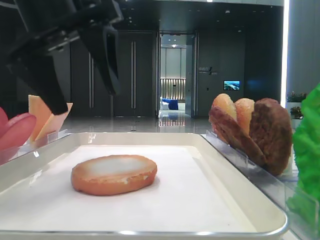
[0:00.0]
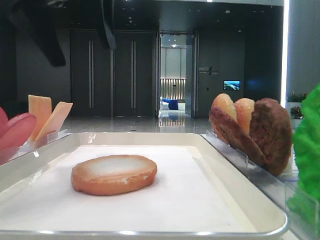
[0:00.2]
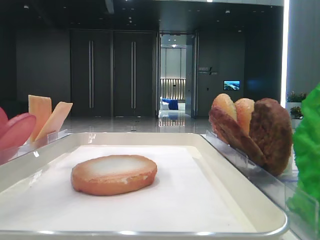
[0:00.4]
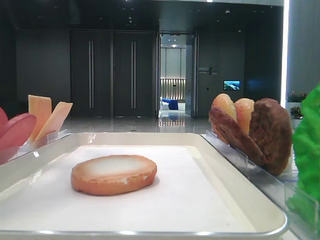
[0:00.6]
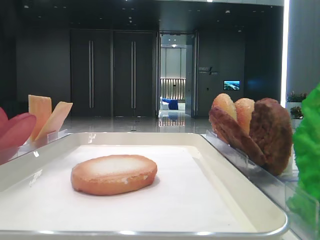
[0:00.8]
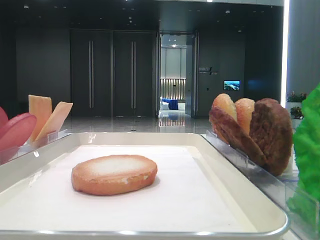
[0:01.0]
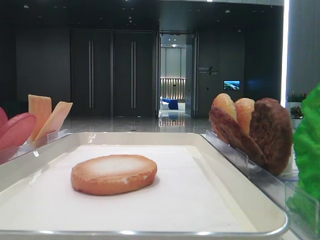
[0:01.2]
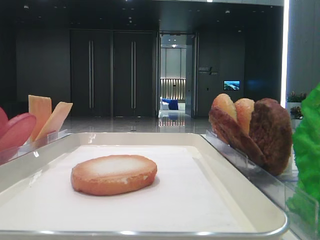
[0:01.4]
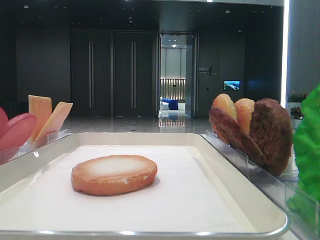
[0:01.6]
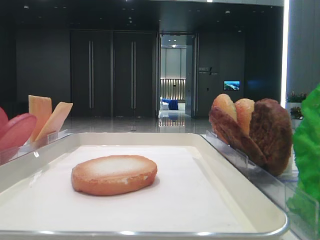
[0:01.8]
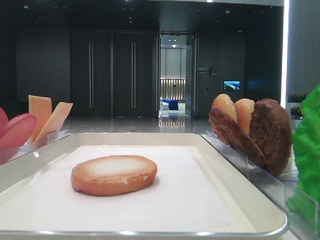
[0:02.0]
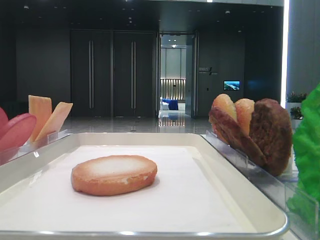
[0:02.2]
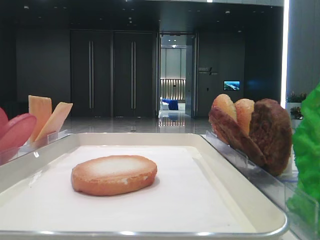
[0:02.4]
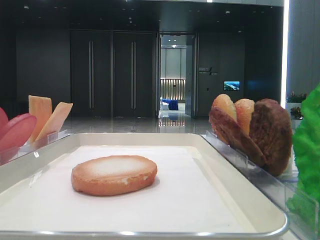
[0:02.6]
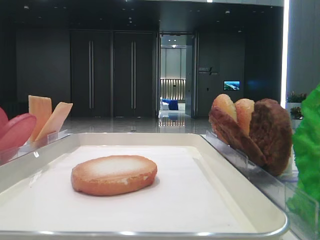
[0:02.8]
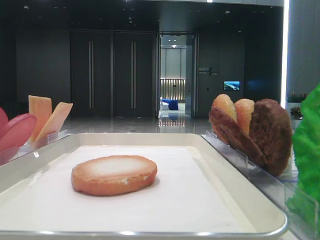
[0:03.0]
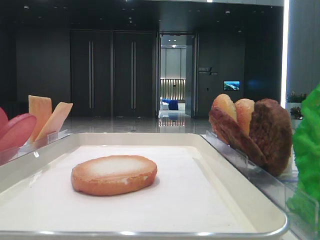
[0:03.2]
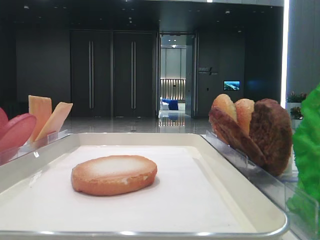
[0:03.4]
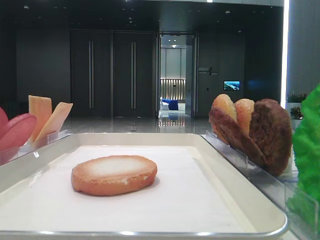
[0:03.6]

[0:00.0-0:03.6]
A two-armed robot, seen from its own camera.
0.0 to 1.8 s: The left gripper goes about 25 cm to the left and backward.

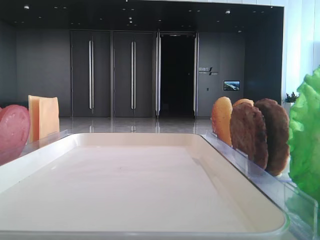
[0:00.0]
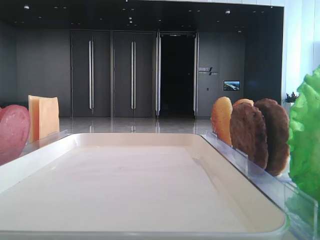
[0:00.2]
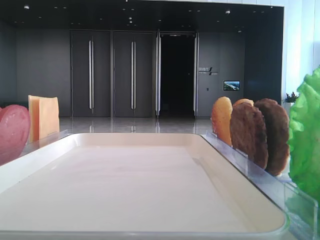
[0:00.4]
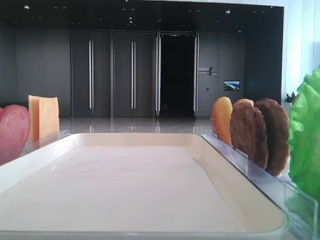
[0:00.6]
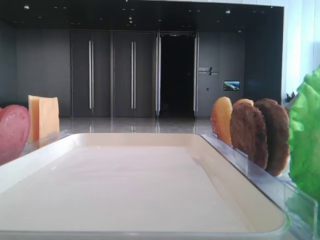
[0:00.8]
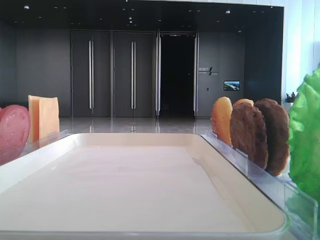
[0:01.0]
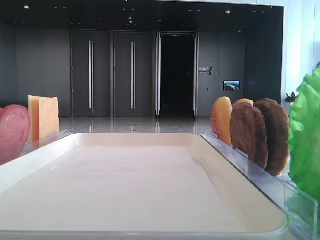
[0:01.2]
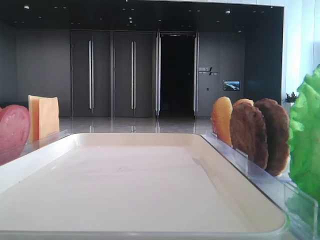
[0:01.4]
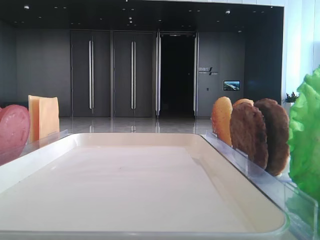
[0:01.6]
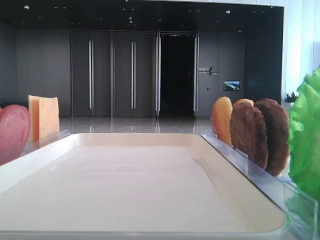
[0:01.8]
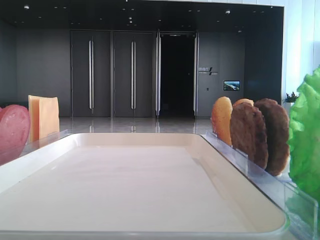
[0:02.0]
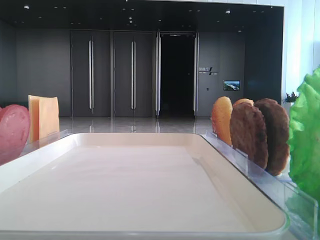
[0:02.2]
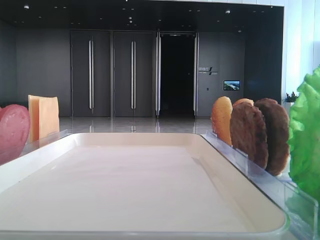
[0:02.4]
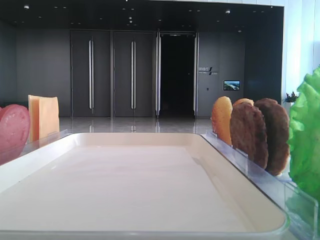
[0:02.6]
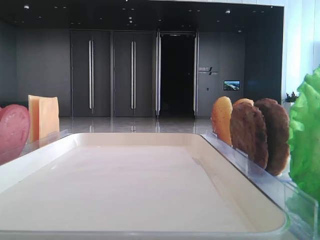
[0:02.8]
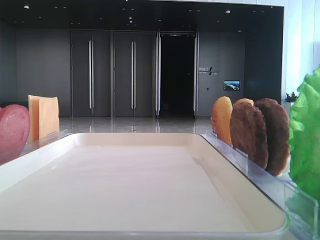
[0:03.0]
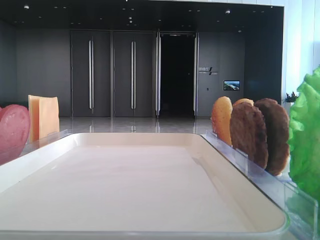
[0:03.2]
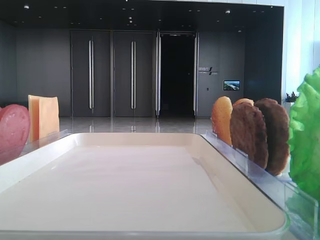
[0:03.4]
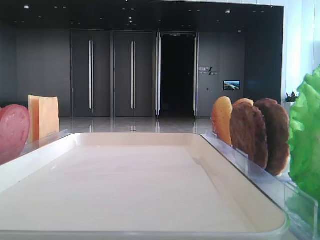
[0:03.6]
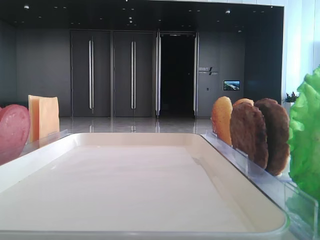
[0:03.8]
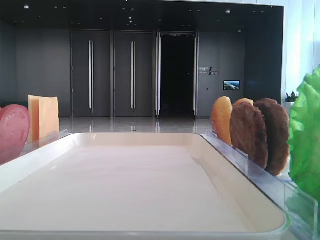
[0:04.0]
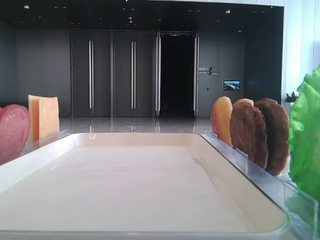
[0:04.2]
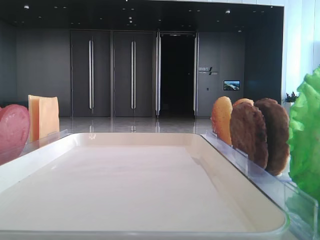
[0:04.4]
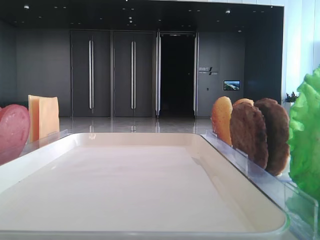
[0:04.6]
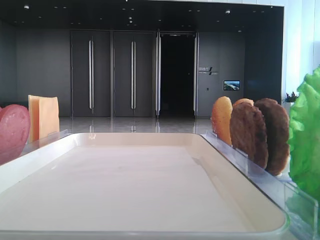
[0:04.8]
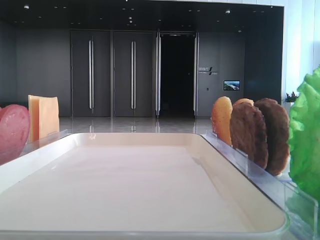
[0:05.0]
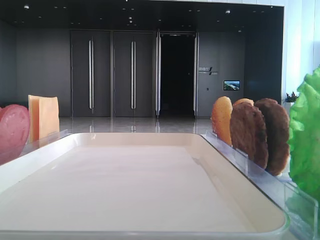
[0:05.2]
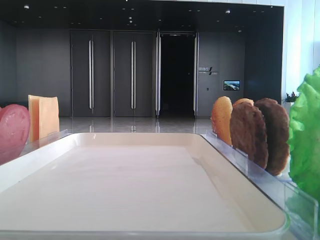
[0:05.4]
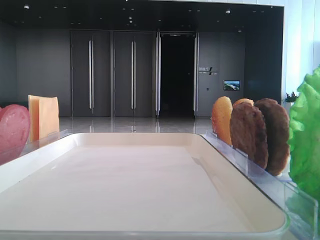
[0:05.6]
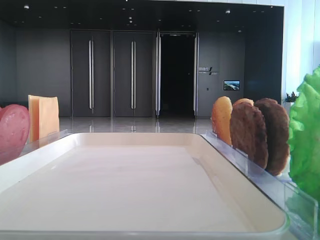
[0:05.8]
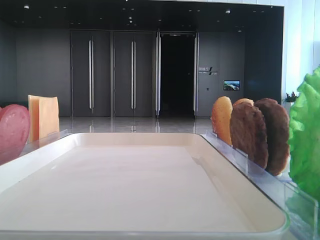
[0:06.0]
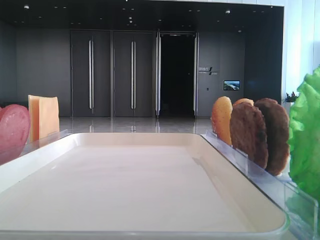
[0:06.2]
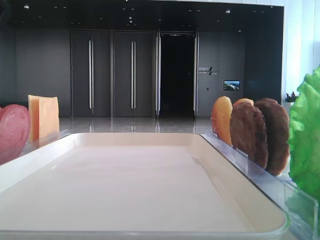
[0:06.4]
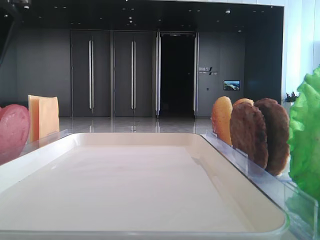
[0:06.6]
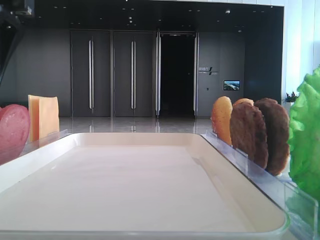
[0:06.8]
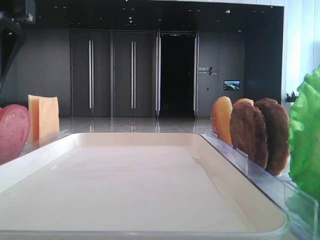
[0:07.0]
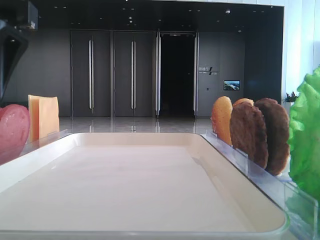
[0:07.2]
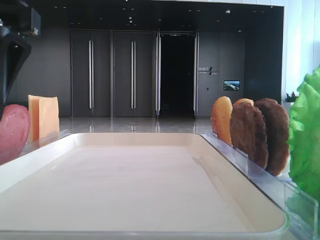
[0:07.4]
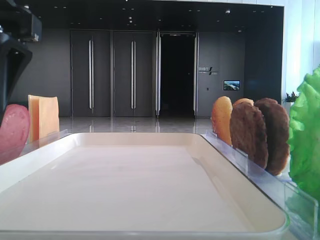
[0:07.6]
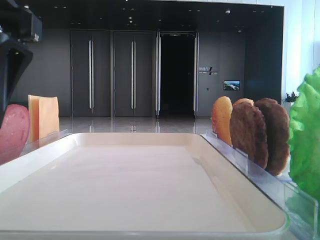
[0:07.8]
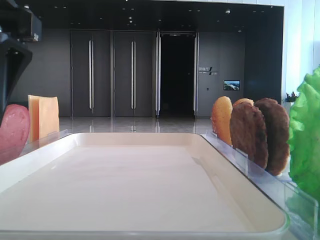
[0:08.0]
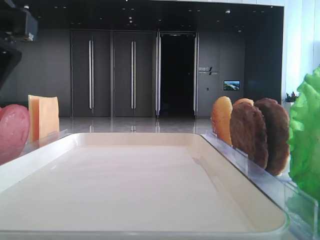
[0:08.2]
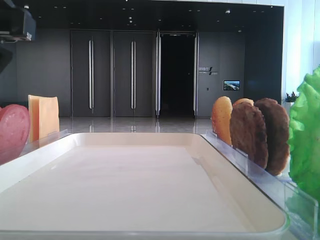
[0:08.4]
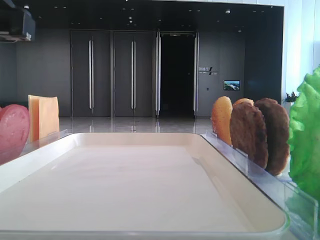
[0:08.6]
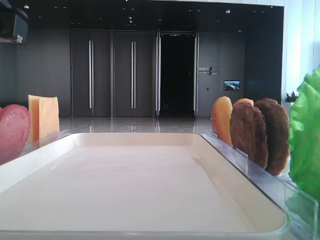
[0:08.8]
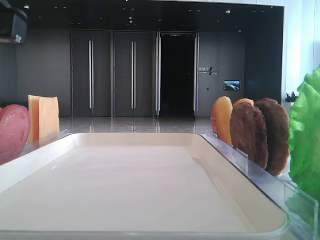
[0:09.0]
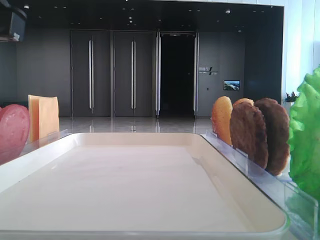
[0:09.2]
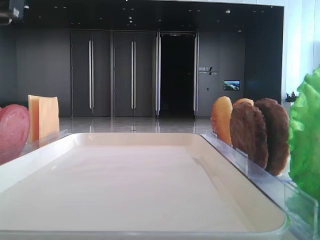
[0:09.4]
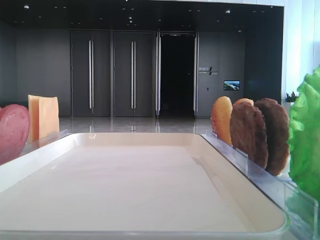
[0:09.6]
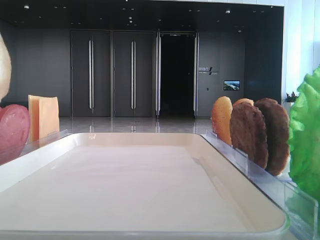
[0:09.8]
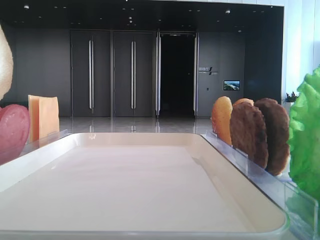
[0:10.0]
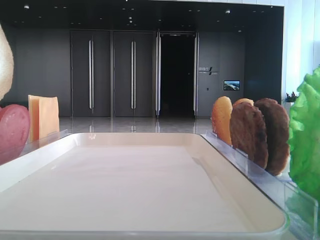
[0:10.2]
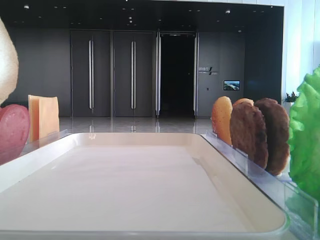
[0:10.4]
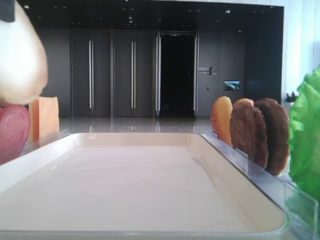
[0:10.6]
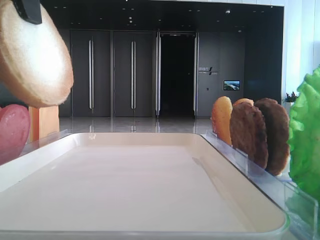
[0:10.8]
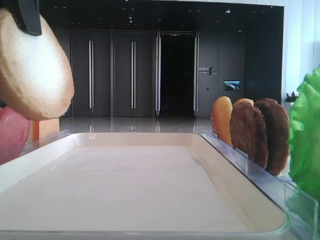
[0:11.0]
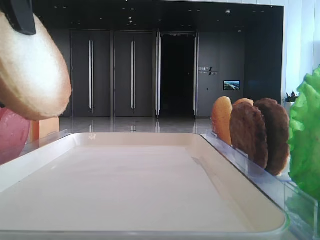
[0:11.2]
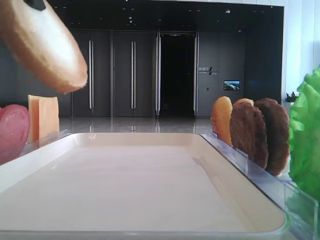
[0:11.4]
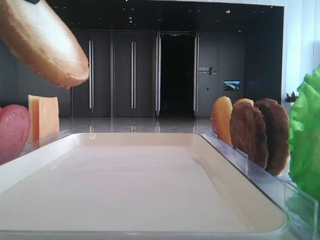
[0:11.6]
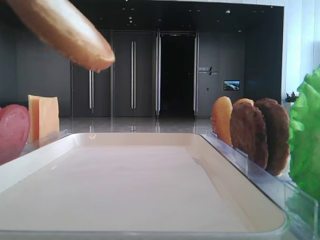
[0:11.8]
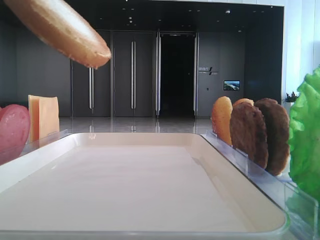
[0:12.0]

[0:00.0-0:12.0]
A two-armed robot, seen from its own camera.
Step, 0.0 to 8.6 s: Pick up the bottom bread with the left hand.
6.0 to 7.6 s: The left gripper heads downward, covering approximately 5 cm.
7.6 to 9.0 s: The left gripper closes its fingers.
9.0 to 10.4 s: The left gripper heads upward, covering about 10 cm.
10.4 to 12.0 s: The left gripper moves some 5 cm.

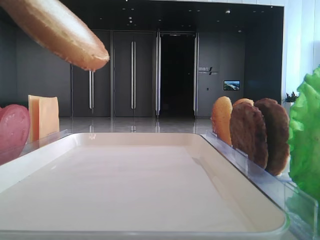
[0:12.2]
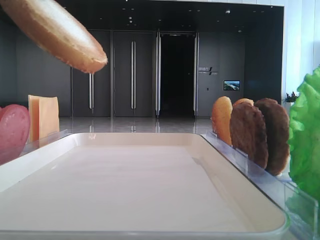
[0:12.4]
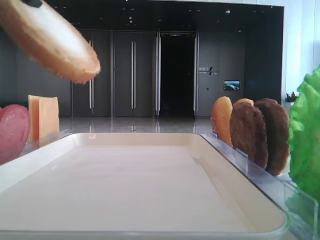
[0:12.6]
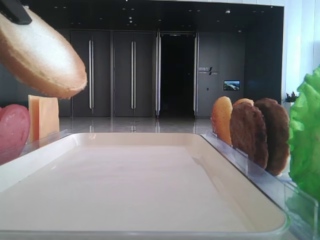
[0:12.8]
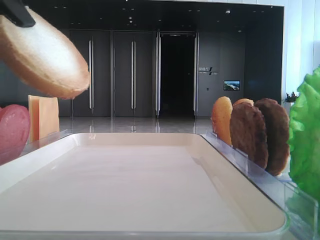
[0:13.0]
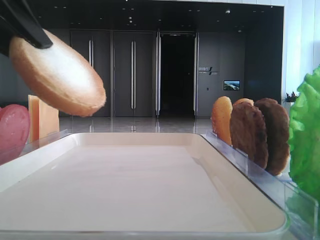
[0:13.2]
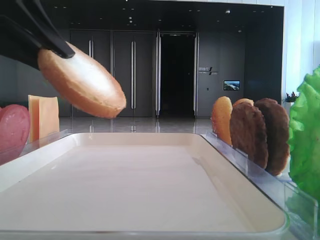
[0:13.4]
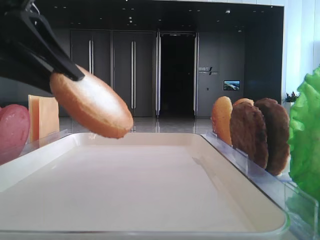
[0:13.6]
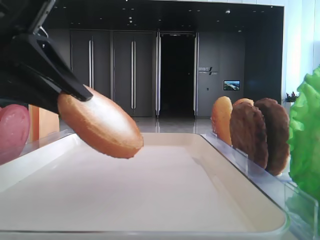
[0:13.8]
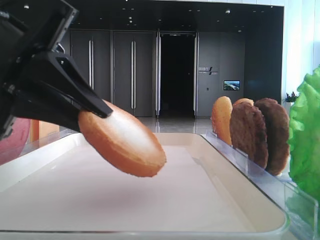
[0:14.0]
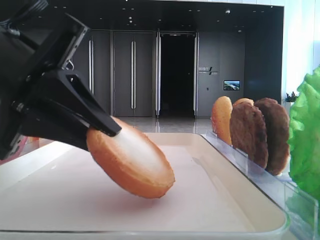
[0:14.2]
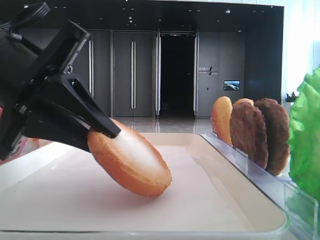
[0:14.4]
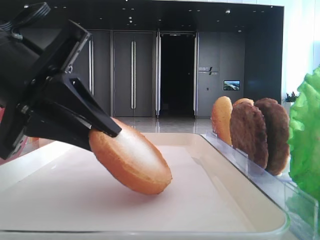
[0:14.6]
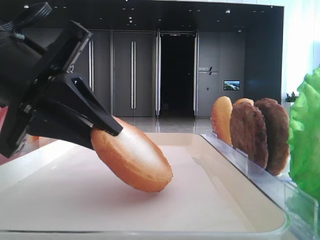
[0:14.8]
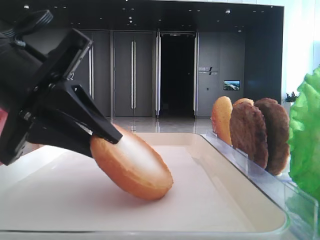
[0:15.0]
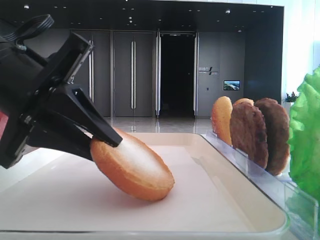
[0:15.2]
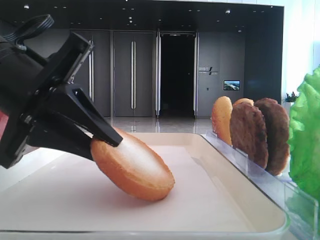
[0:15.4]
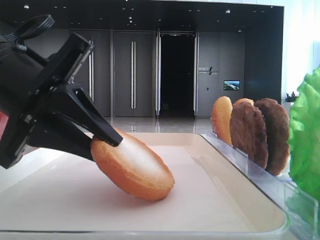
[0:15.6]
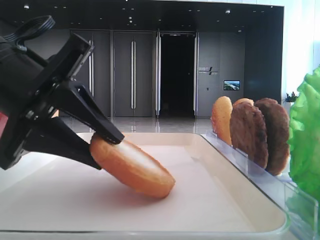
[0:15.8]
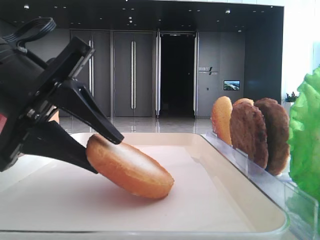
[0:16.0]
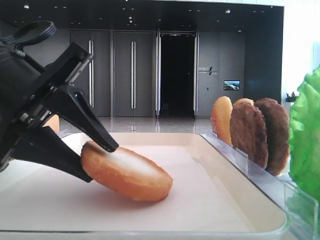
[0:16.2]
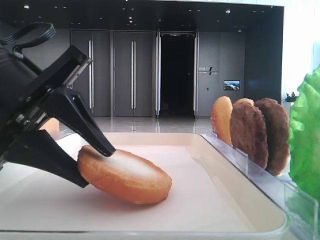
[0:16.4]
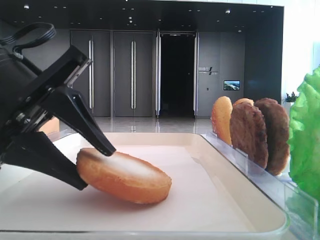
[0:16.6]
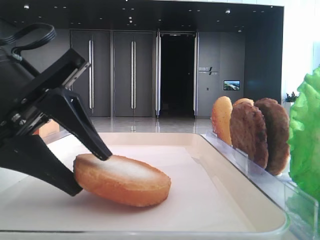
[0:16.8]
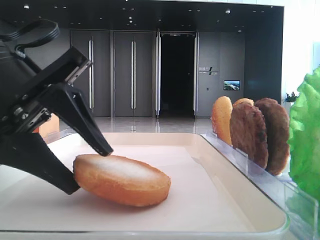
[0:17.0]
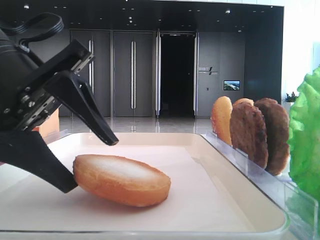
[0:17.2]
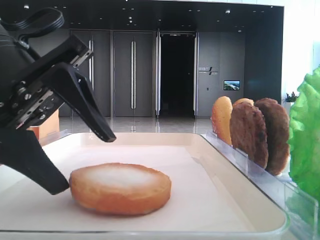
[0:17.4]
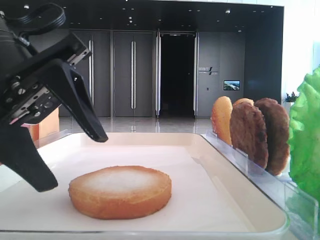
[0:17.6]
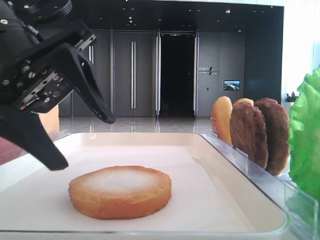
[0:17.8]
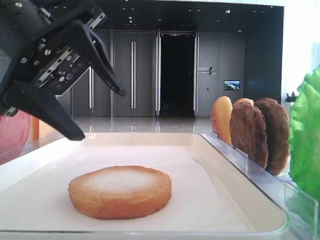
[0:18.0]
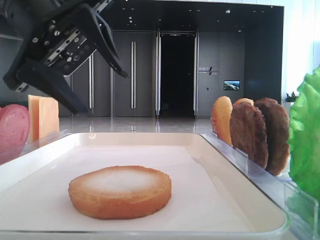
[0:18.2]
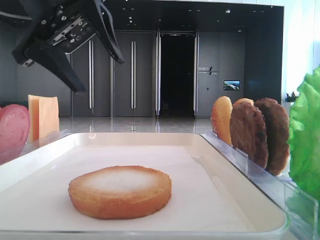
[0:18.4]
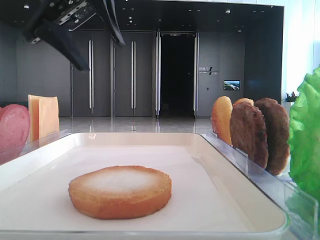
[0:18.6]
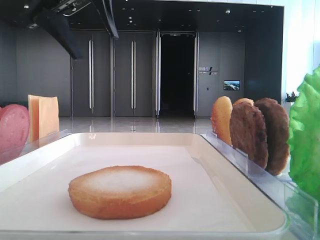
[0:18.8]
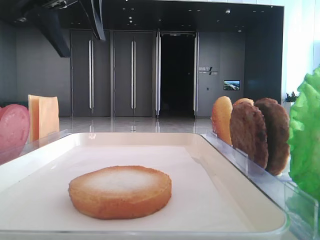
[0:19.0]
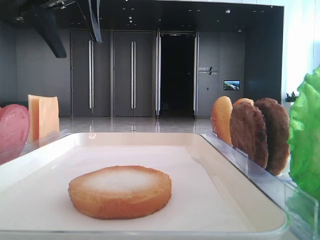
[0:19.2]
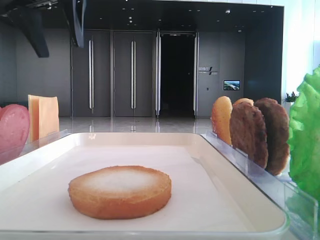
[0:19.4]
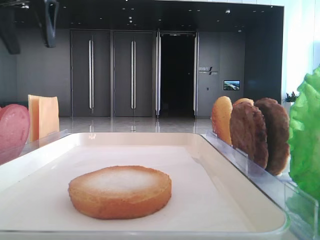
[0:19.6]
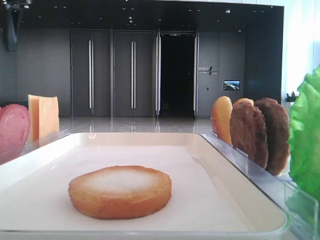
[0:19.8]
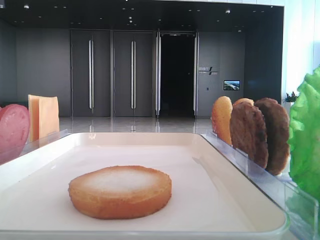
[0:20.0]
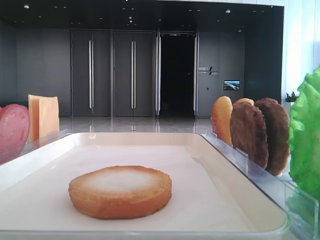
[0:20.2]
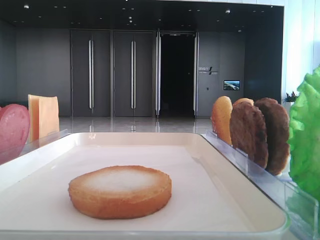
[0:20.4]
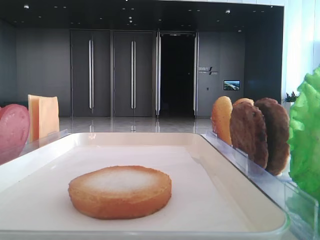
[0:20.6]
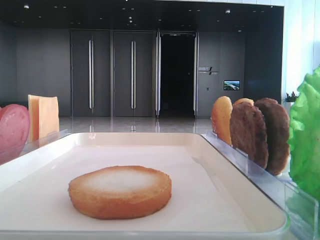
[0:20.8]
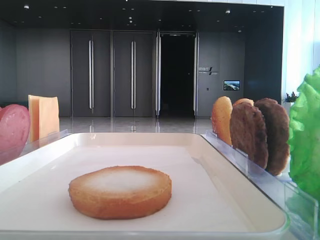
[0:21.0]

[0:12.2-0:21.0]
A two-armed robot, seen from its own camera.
Step, 12.2 to 17.4 s: Place the bread on the tray with the left hand.
12.2 to 13.6 s: The left gripper goes roughly 5 cm downward.
13.6 to 15.2 s: The left gripper goes some 5 cm downward.
15.2 to 16.6 s: The grippers make only small movements.
16.6 to 18.0 s: The left gripper travels upward by approximately 5 cm.
18.0 to 19.6 s: The left gripper heads upward, forward and to the left, covering some 20 cm.
